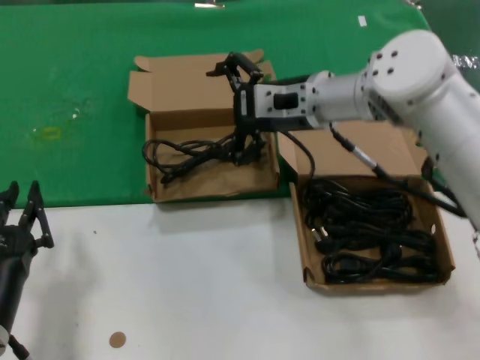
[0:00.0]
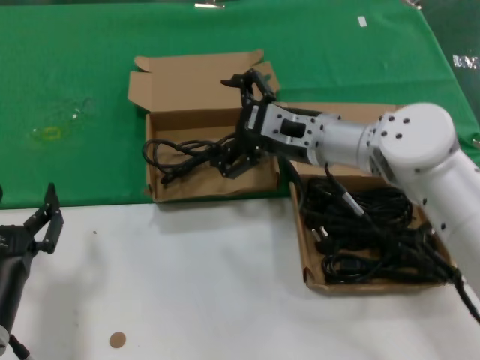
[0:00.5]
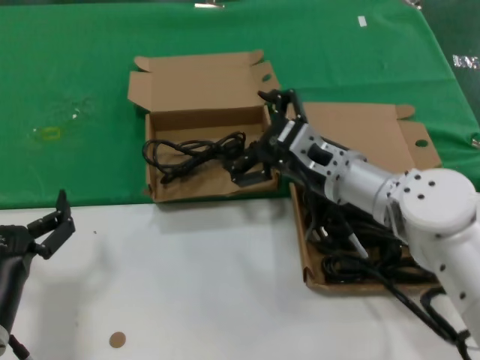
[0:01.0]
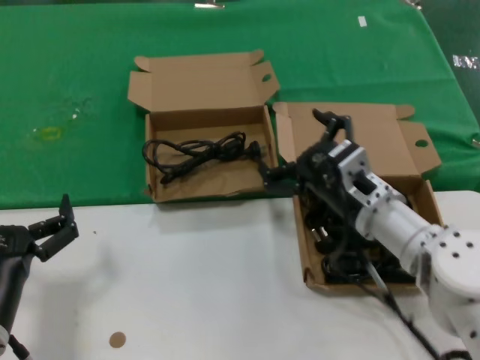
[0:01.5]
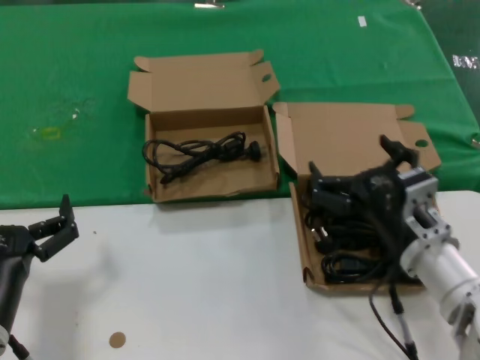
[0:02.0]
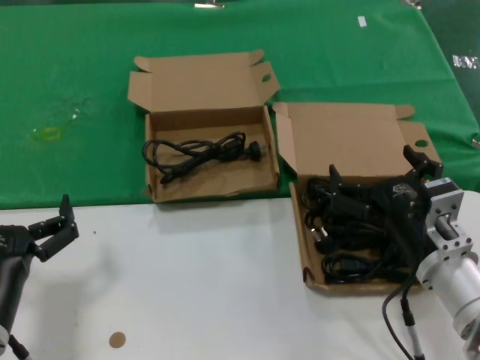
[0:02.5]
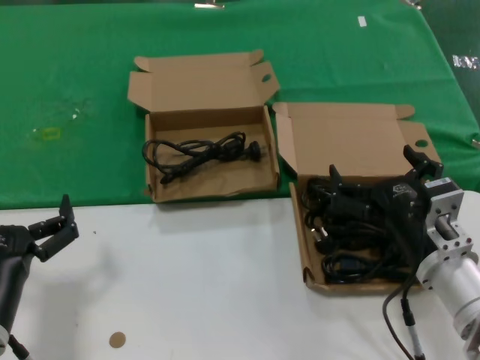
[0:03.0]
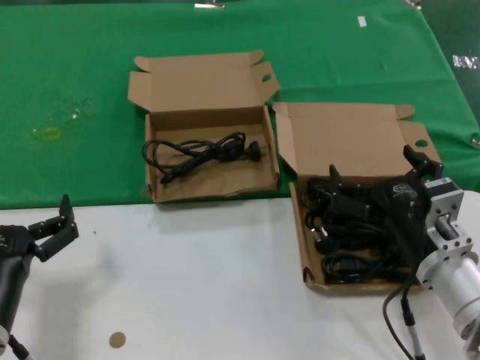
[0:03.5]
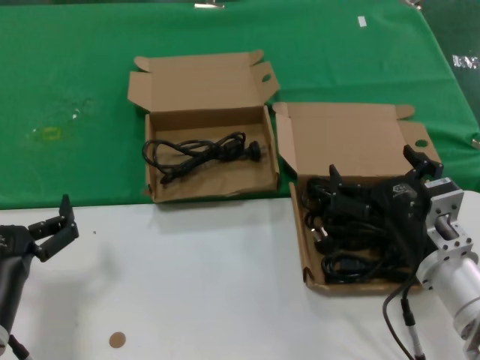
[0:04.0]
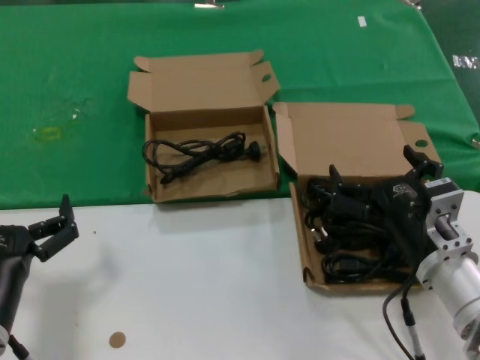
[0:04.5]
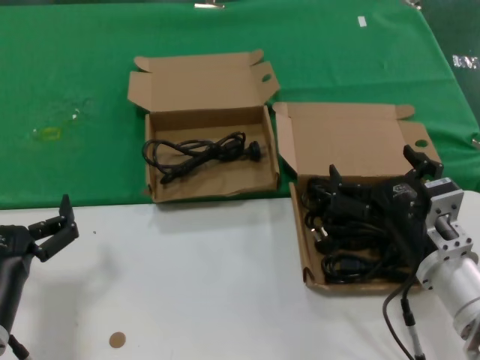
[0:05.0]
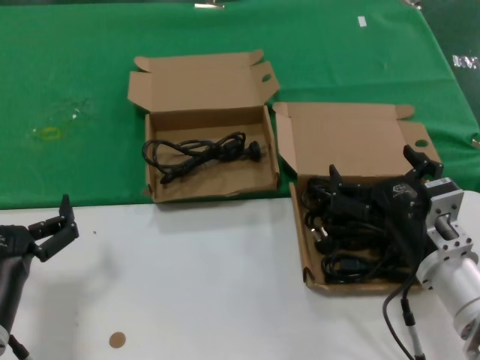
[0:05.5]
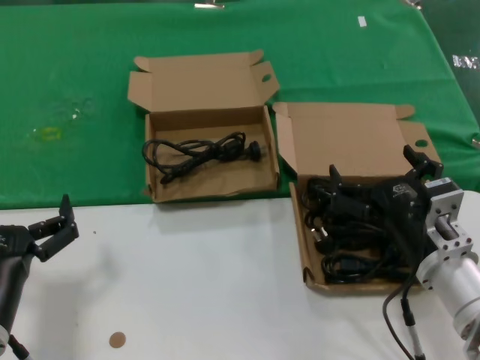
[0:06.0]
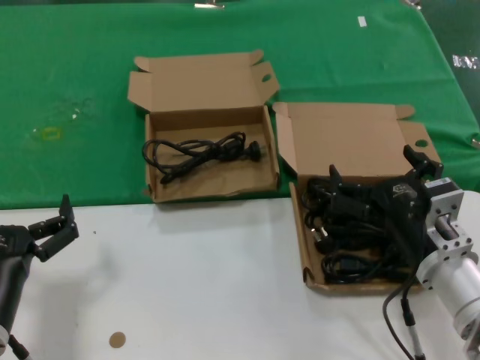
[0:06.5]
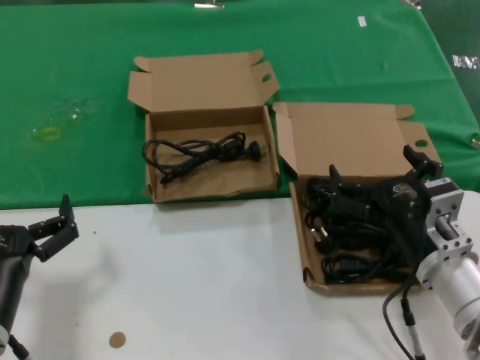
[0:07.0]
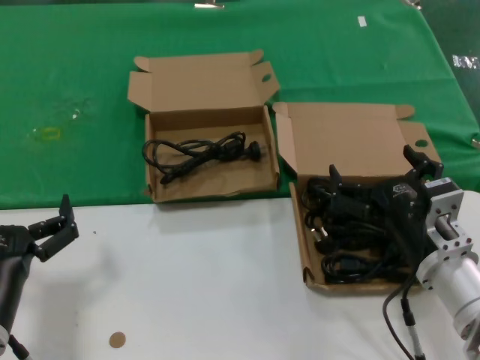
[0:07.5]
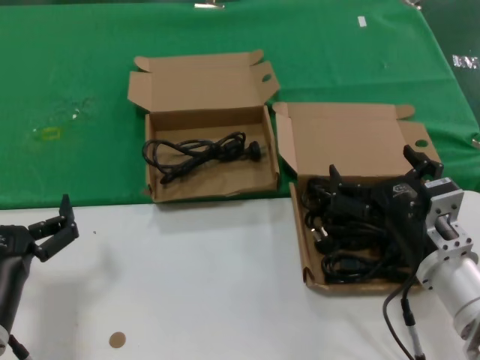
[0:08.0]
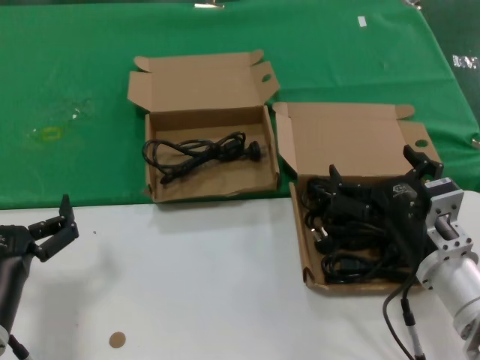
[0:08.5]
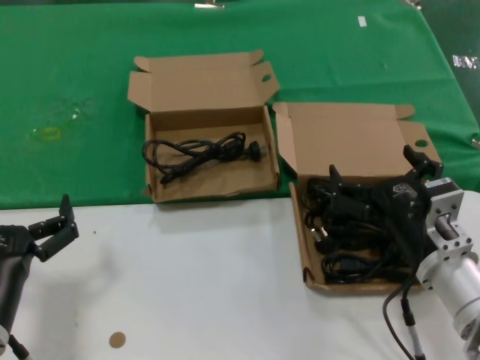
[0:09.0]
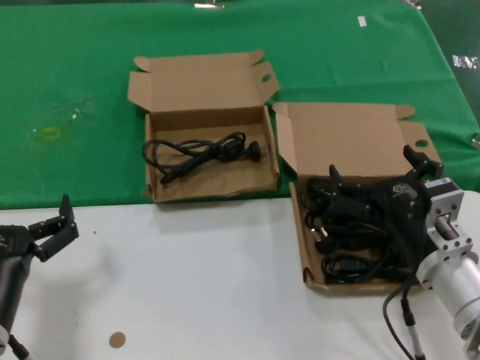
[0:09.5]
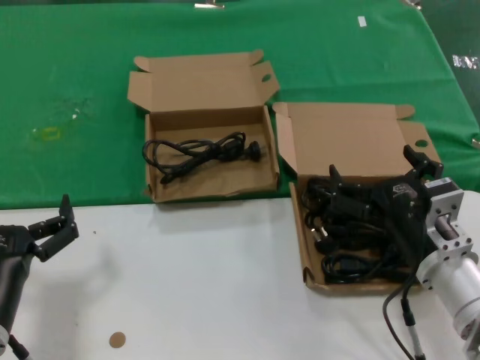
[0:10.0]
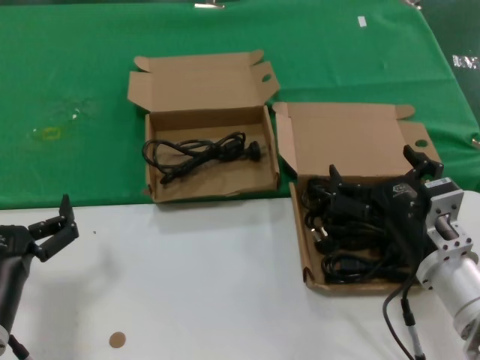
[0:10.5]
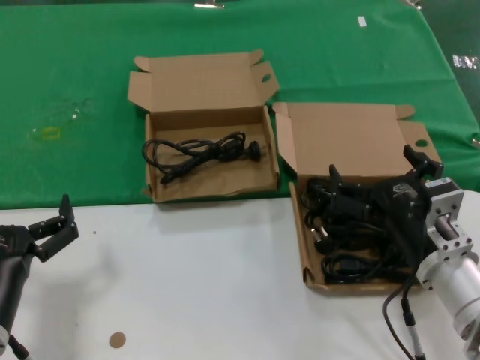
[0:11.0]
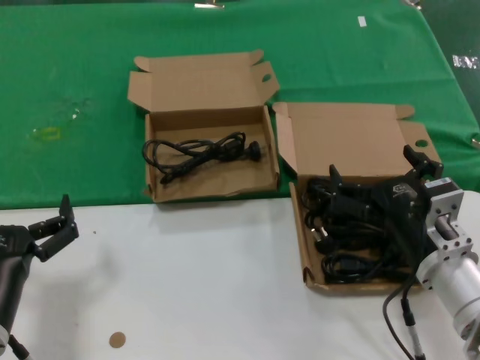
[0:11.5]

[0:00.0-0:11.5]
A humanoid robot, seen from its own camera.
Task of the whole recording: take the parts from the box containing them and put them into an empty box.
0:00.0 to 0:02.0: The right hand shifts roughly 25 cm backward and downward.
0:02.0 to 0:04.0: The hands stay close to where they were, moving slightly.
0:04.0 to 0:11.5: The two hands keep their place.

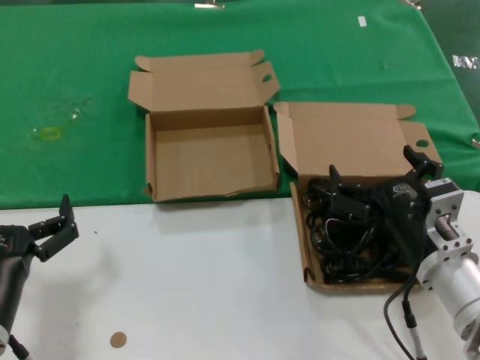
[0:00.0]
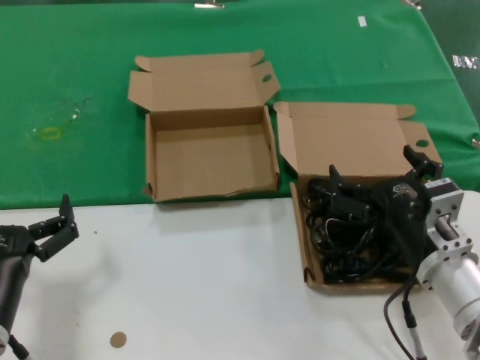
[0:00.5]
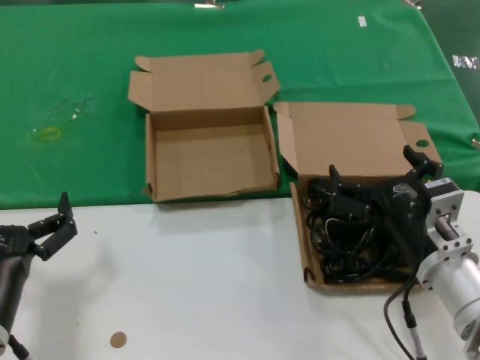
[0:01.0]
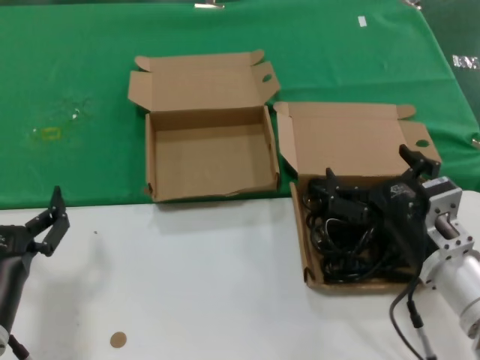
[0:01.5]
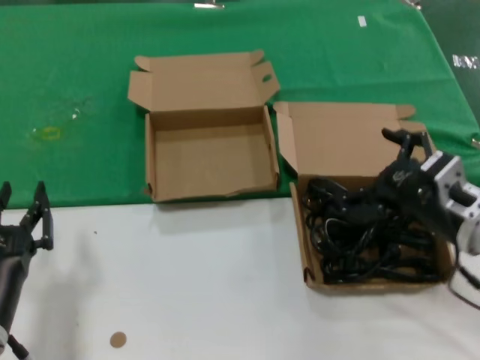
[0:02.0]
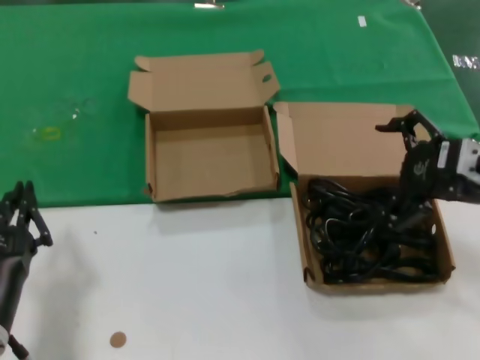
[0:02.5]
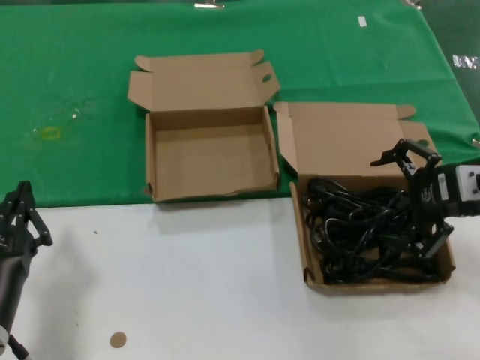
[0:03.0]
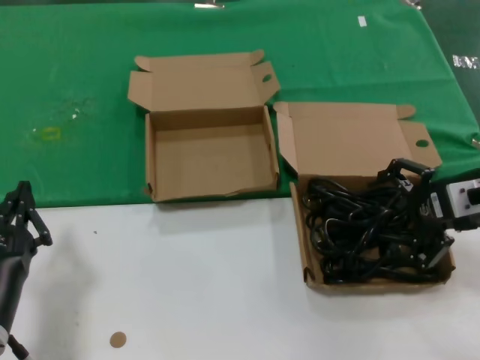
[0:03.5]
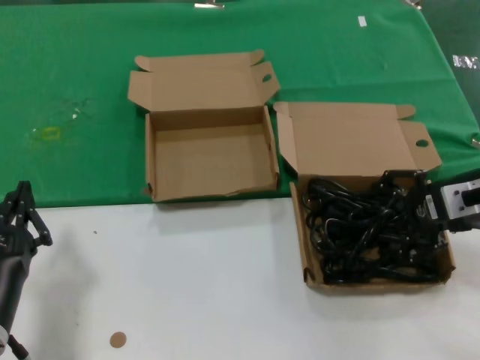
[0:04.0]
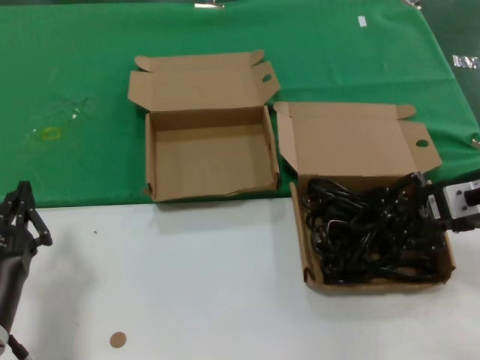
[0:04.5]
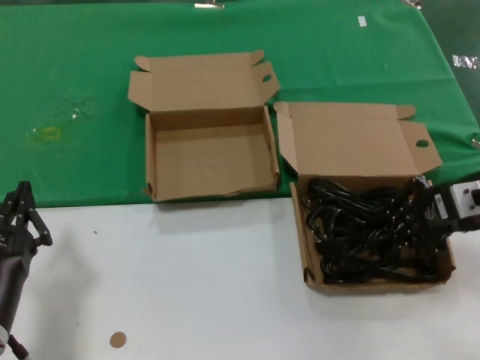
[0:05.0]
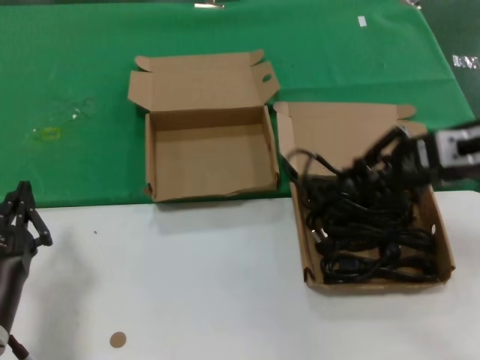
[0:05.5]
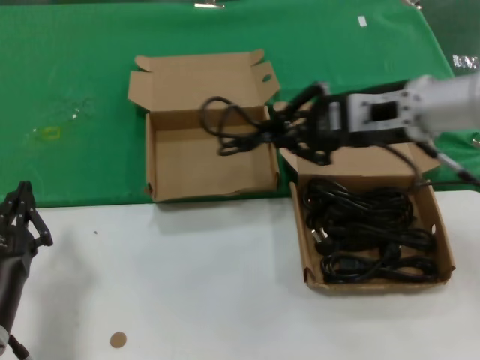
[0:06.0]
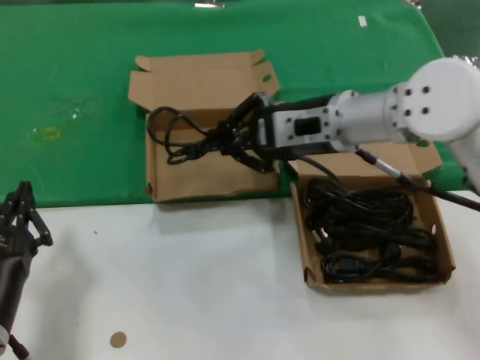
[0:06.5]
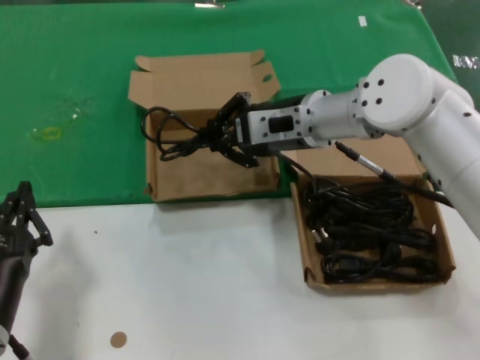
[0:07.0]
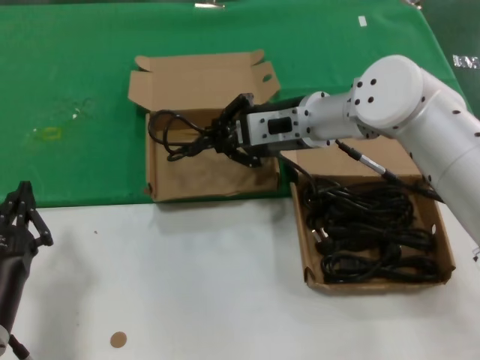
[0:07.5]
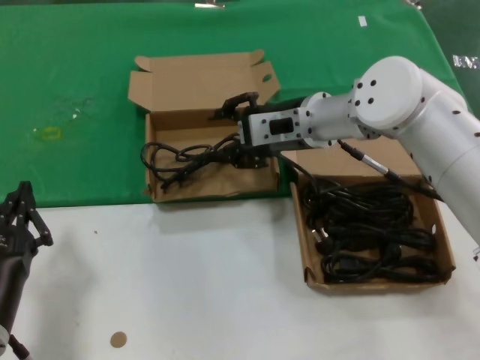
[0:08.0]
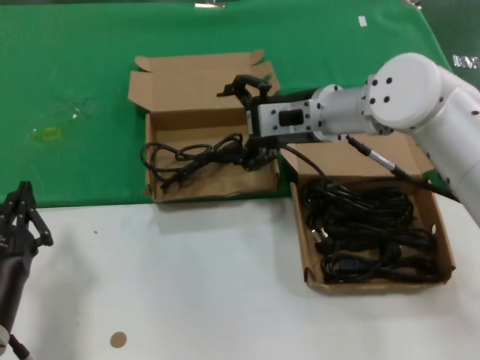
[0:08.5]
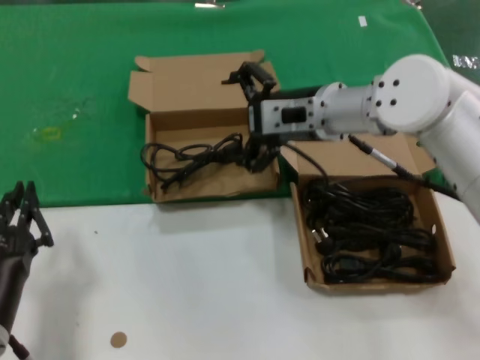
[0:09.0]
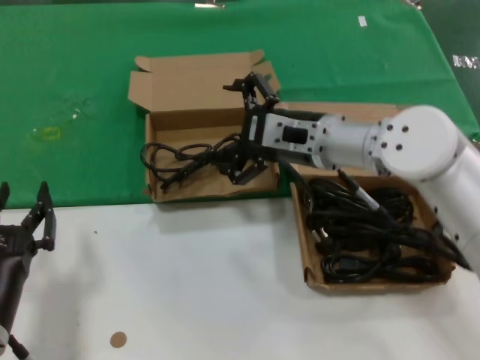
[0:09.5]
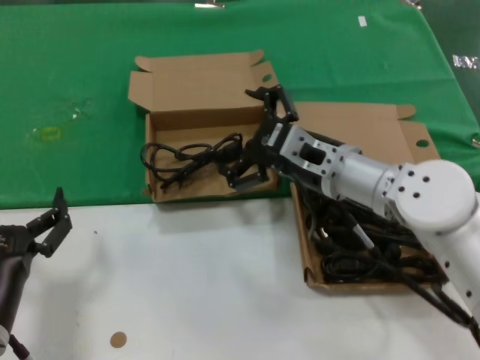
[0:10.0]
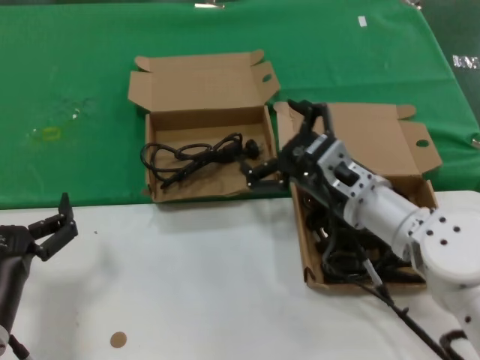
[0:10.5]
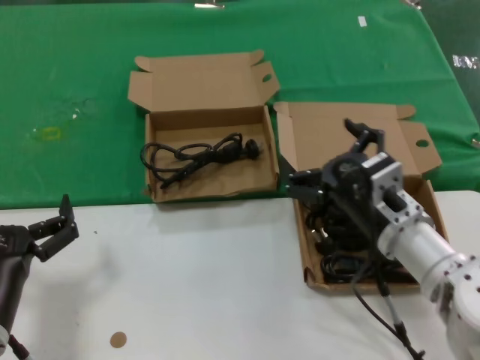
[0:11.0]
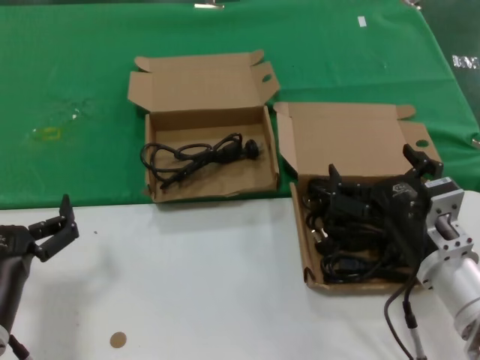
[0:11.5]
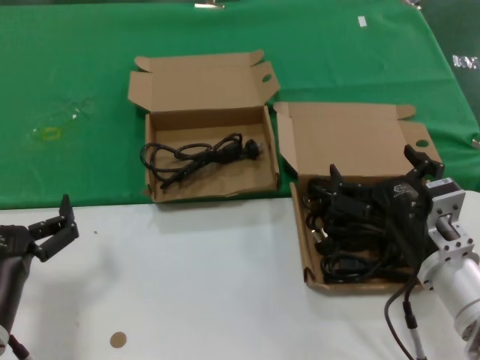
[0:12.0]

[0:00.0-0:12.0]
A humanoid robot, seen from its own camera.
Task of the whole recording: take the parts from the box containing them and put them into an empty box.
Step, 0:00.0 to 0:04.0: Grasp the data cable.
Step, 0:04.5 to 0:07.5: Place the data cable in the another box.
0:00.0 to 0:02.0: The right hand travels to the right and upward by about 10 cm.
0:02.0 to 0:04.0: The right hand is displaced forward, upward and to the right by some 10 cm.
0:04.0 to 0:06.0: The right hand shifts some 15 cm to the left and upward.
0:06.0 to 0:08.0: The right hand goes some 15 cm to the left, forward and downward.
0:08.0 to 0:10.0: The right hand is displaced backward and downward by about 10 cm.
0:10.0 to 0:12.0: The right hand heads backward, downward and to the right, covering about 20 cm.

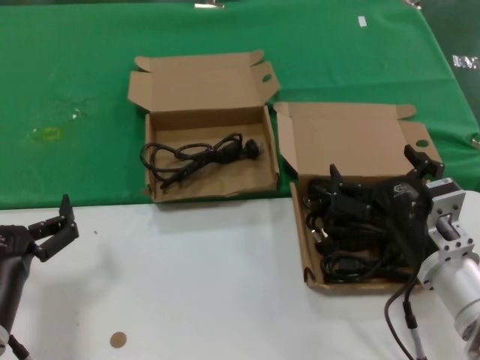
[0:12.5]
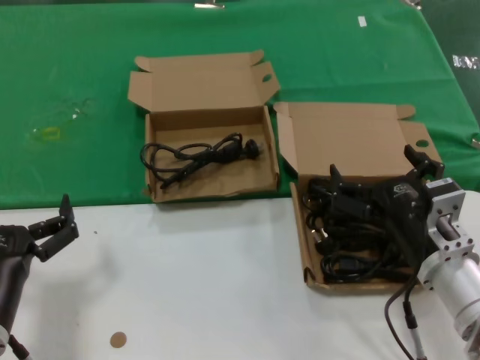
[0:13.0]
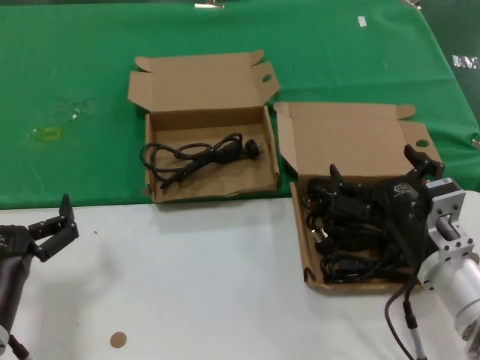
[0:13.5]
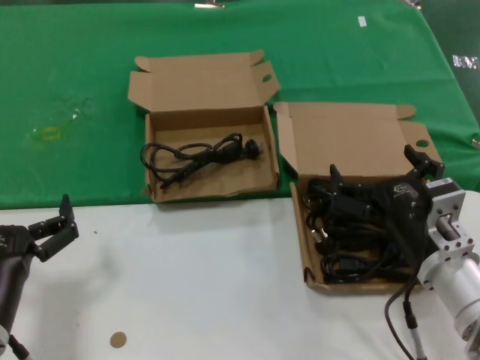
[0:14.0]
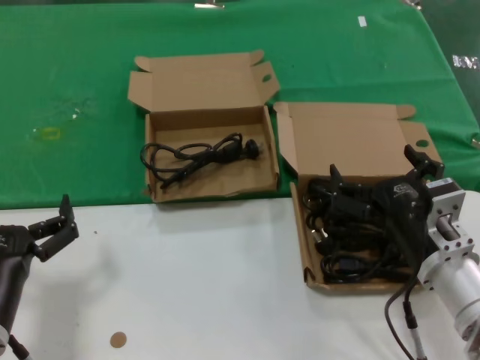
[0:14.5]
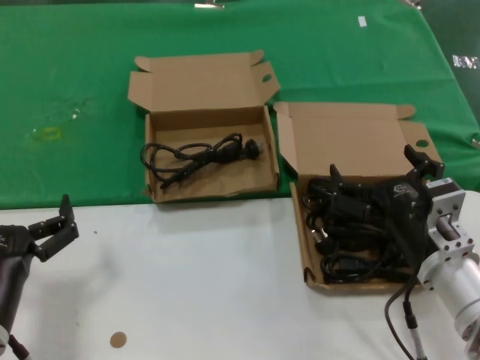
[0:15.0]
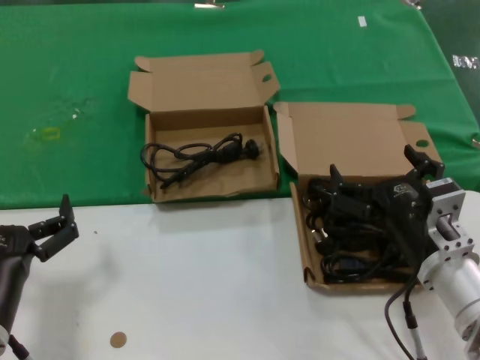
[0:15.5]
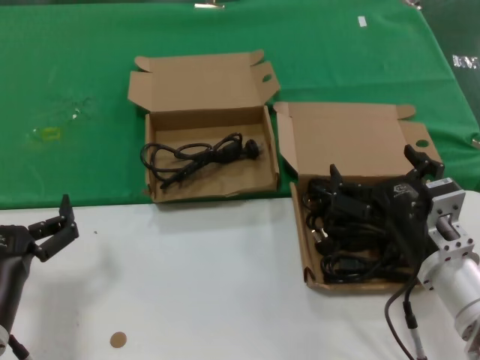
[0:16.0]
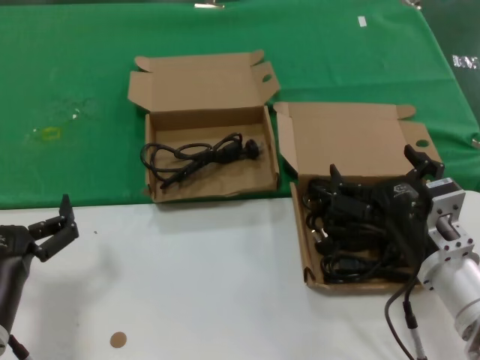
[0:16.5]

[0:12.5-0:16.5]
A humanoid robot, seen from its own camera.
Task of the whole recording: take the parts from the box containing them and put them into an empty box.
0:12.5 to 0:16.5: Both hands stay about where they are.
